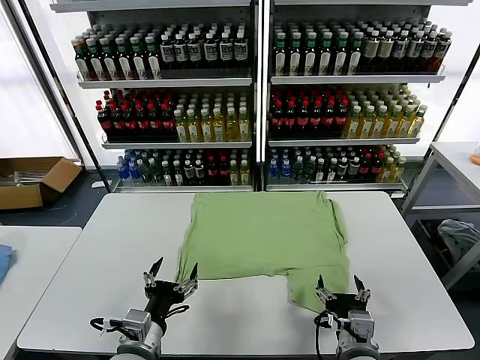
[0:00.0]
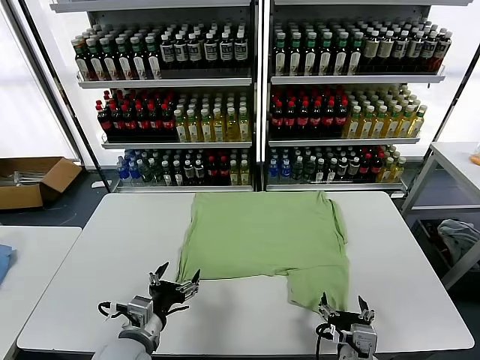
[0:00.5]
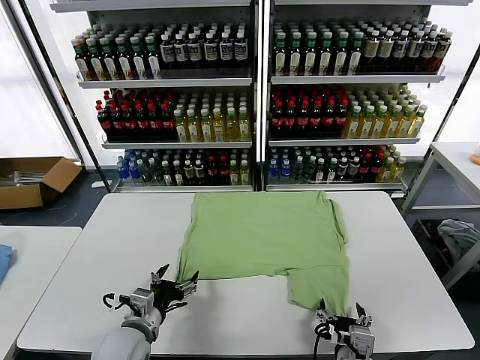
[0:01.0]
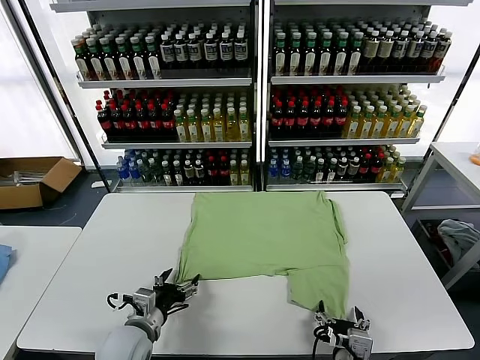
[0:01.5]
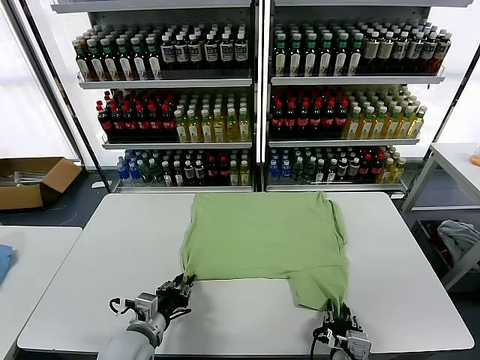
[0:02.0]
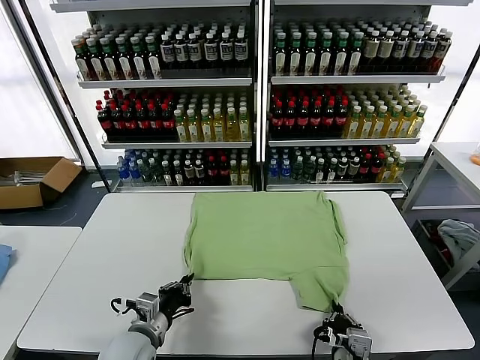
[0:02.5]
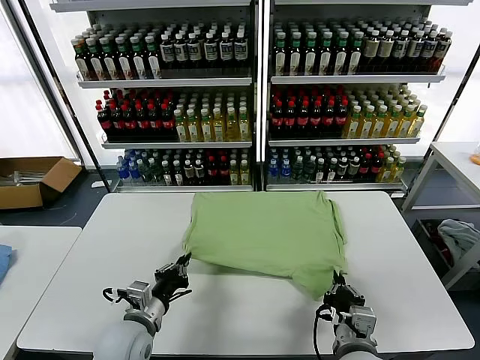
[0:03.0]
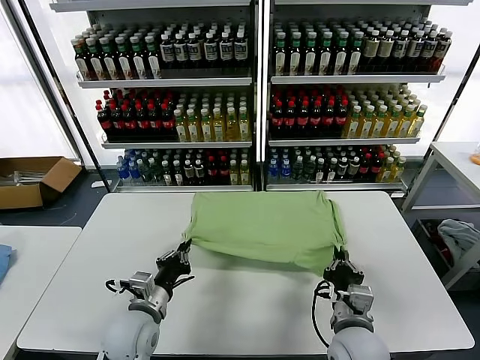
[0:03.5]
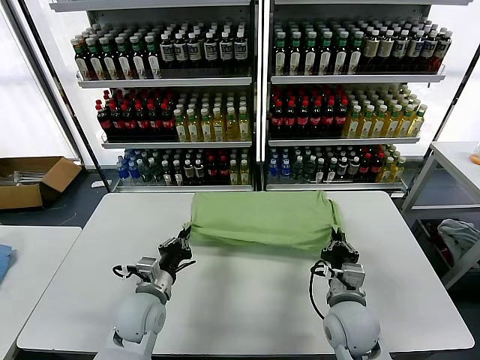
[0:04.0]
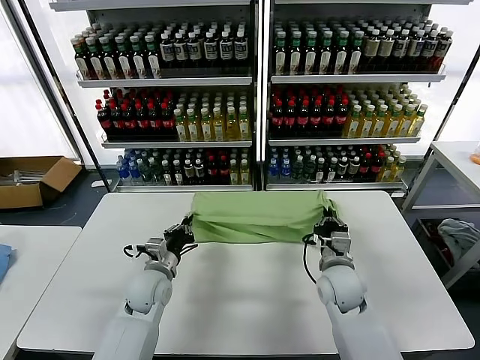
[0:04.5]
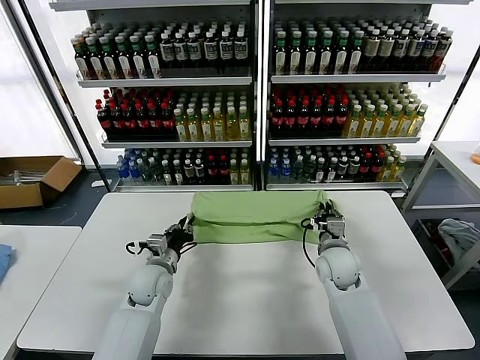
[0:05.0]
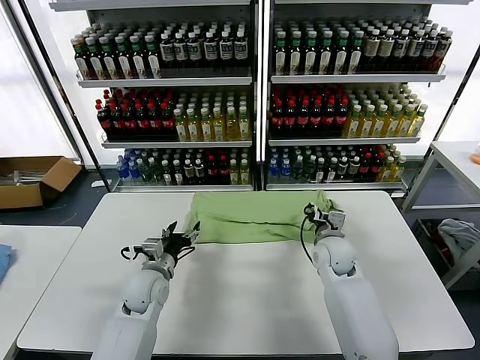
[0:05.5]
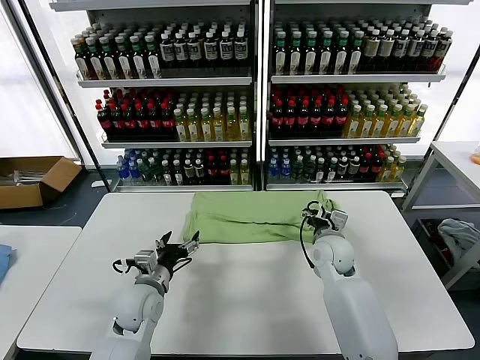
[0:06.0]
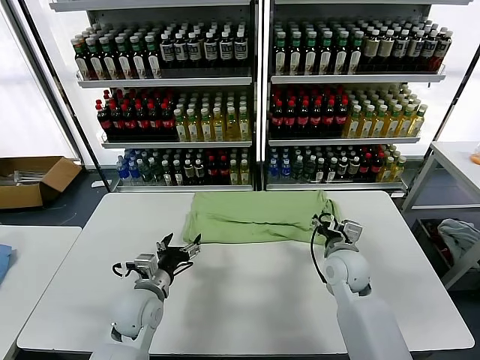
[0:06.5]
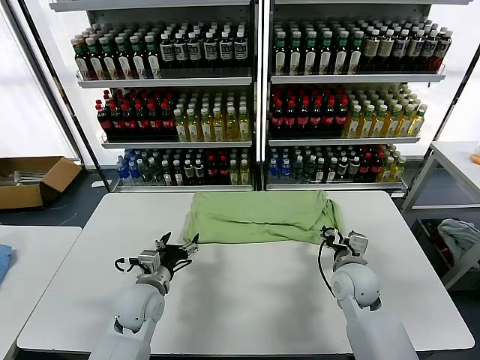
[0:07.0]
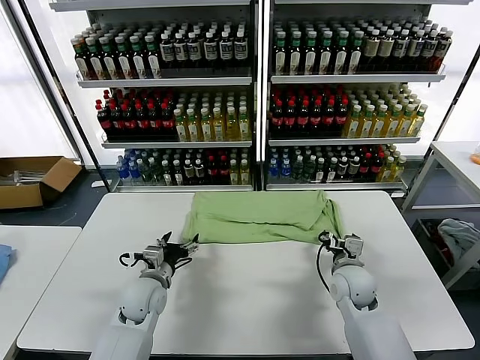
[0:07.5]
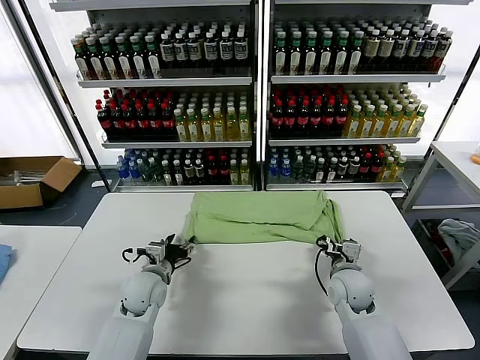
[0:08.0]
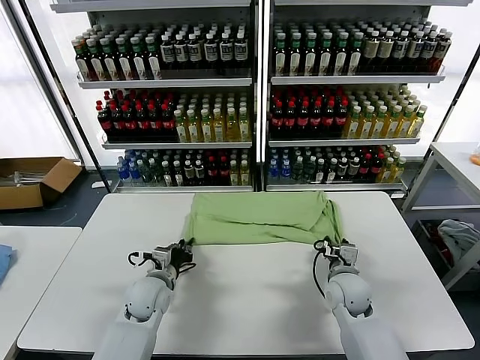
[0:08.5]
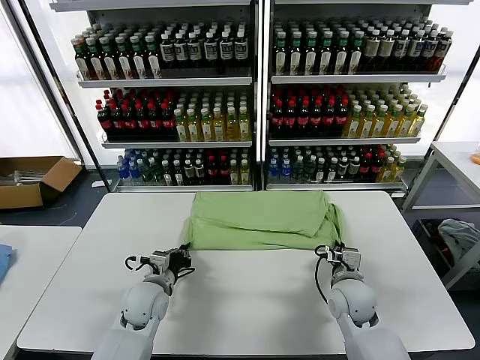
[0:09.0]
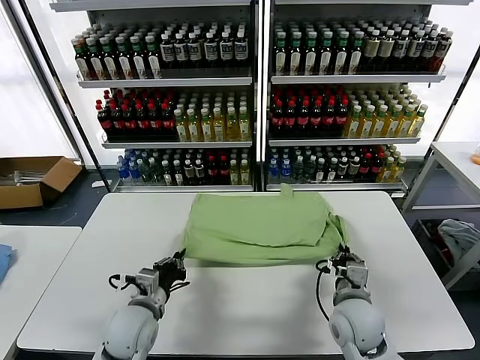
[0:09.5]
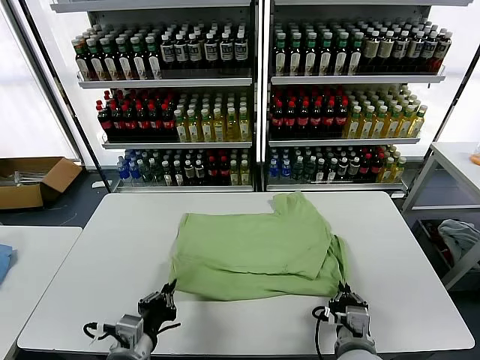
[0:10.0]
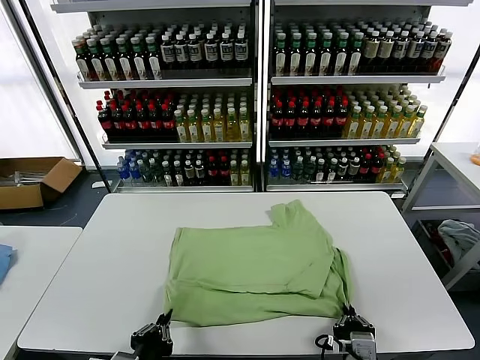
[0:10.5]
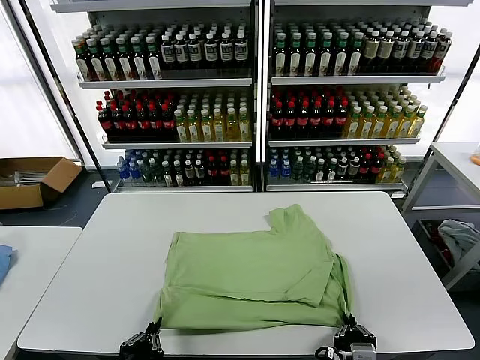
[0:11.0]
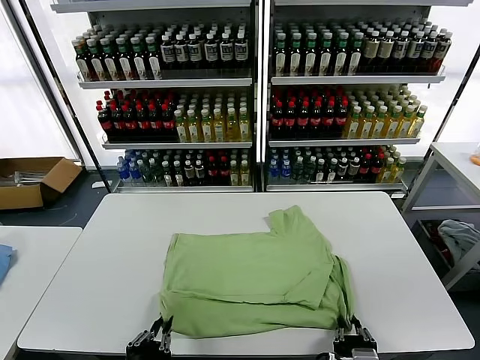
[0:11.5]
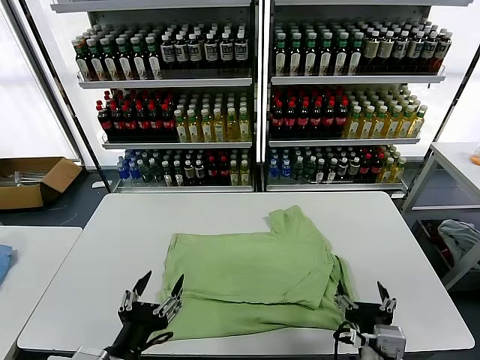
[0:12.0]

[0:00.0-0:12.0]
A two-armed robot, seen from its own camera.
Task of the whole recording: fold and organize the clothes.
Step, 0:00.0 to 0:02.0: use both grippers simultaneously to clamp the lower edge of the clothing fabric.
Step, 0:02.5 to 0:05.5: use both grippers to drag the lower edge of the fabric forward and fold it over the upper edge.
Step, 0:06.0 to 0:11.5: Drag the clothes downward with both gripper.
0:02.0 to 0:04.0: The left gripper shifts some 10 cm forward. Meanwhile the right gripper shifts some 15 cm forward.
0:04.0 to 0:06.0: The left gripper reaches roughly 10 cm forward, then returns, and opens up, while the right gripper goes some 10 cm forward, and opens its fingers.
0:06.0 to 0:08.0: The right gripper shifts about 5 cm backward. Meanwhile the left gripper moves roughly 5 cm.
0:08.0 to 0:10.0: The two grippers go some 20 cm backward. The left gripper closes its fingers, while the right gripper closes its fingers.
0:10.0 to 0:12.0: The left gripper is displaced upward and backward by approximately 10 cm, and opens its fingers. The right gripper travels upward by about 10 cm, and opens.

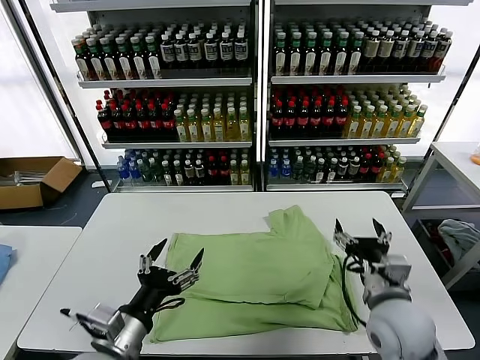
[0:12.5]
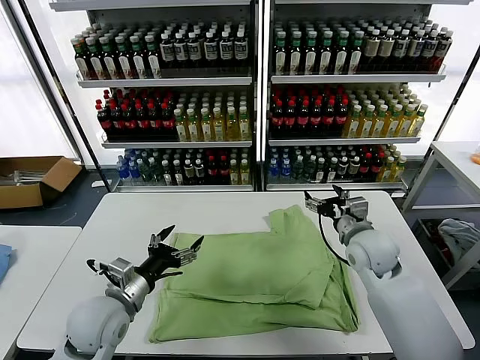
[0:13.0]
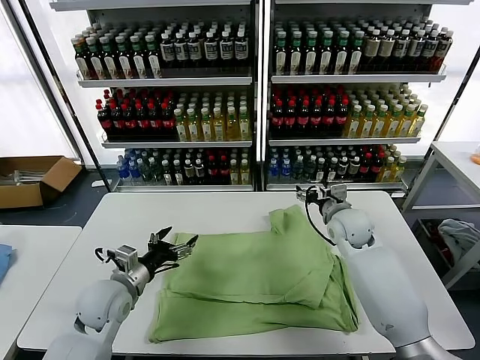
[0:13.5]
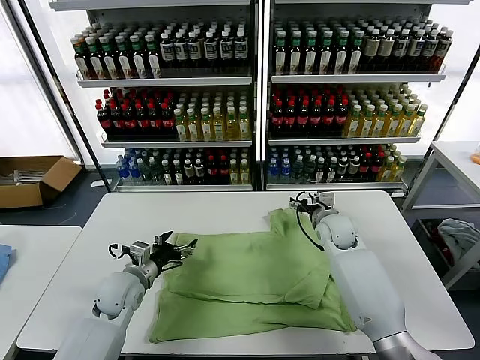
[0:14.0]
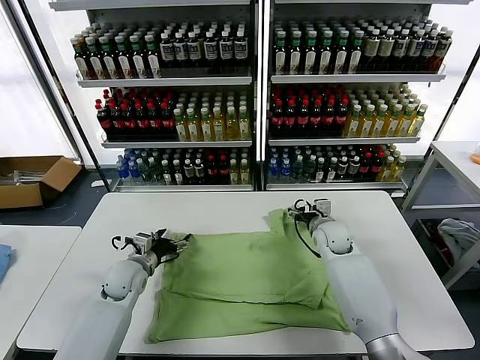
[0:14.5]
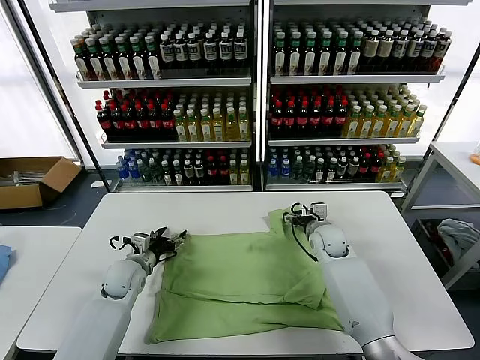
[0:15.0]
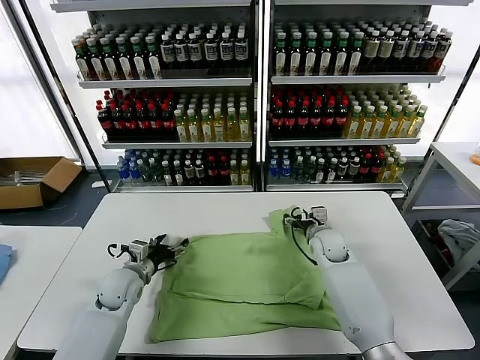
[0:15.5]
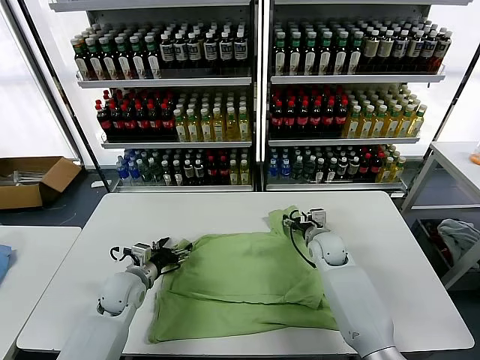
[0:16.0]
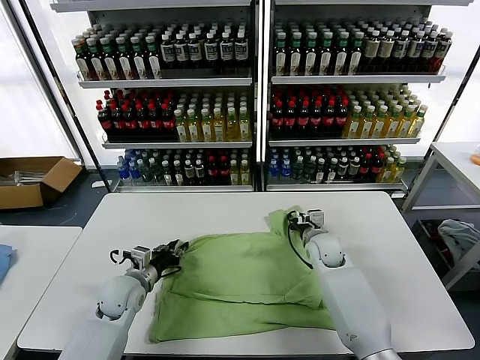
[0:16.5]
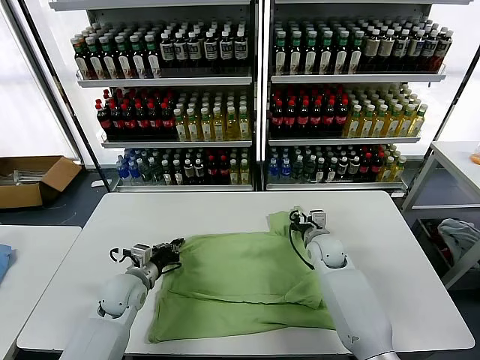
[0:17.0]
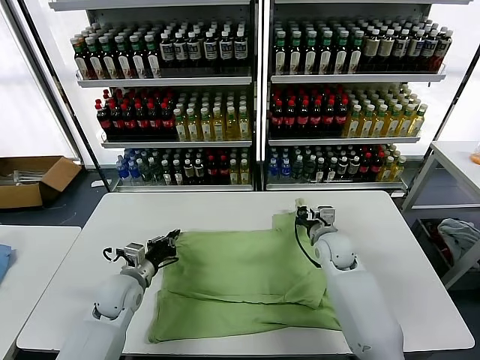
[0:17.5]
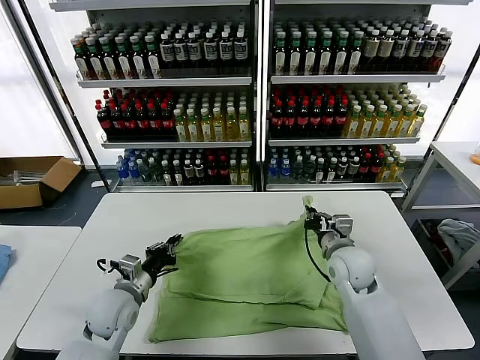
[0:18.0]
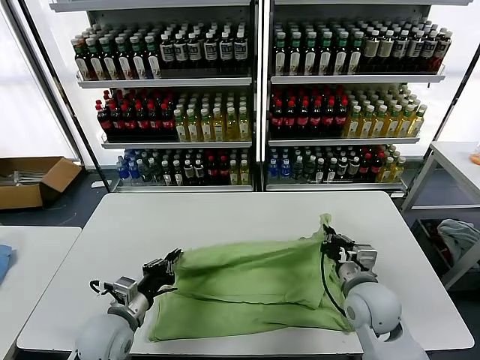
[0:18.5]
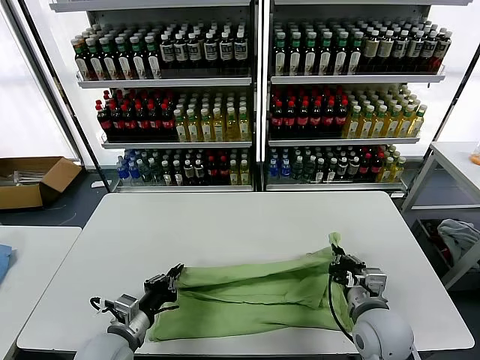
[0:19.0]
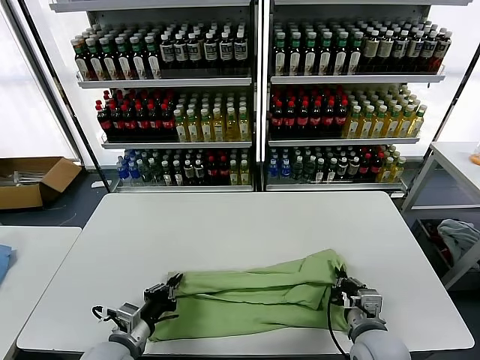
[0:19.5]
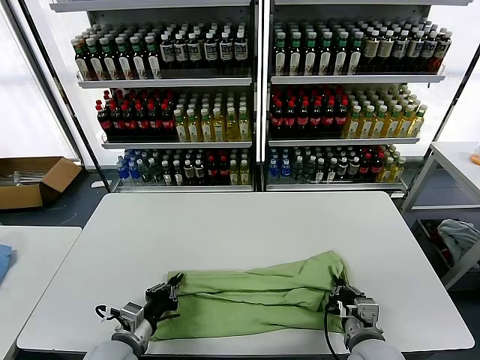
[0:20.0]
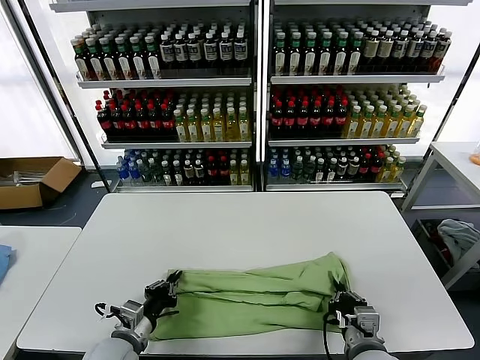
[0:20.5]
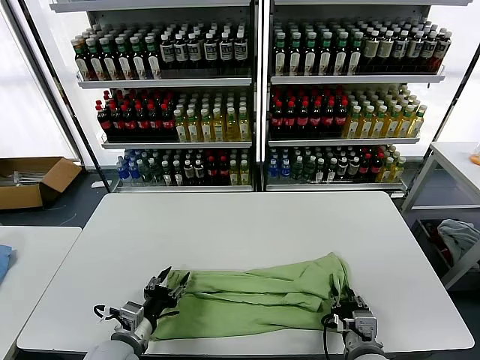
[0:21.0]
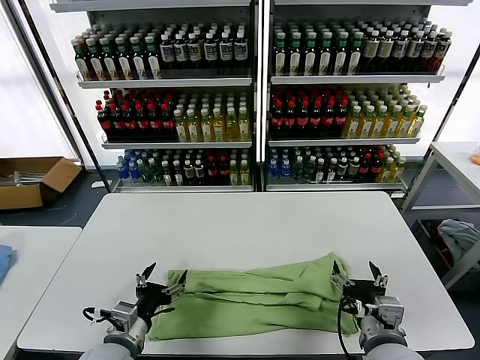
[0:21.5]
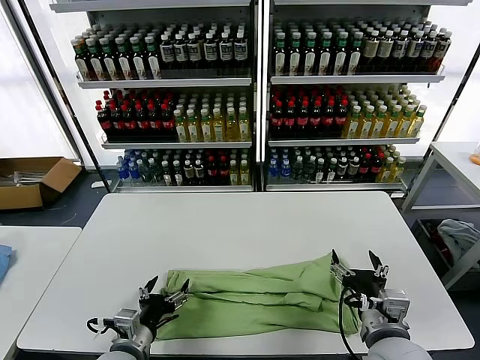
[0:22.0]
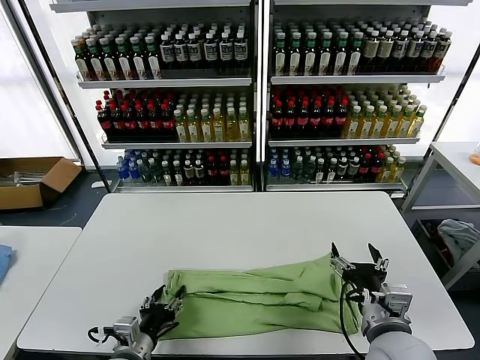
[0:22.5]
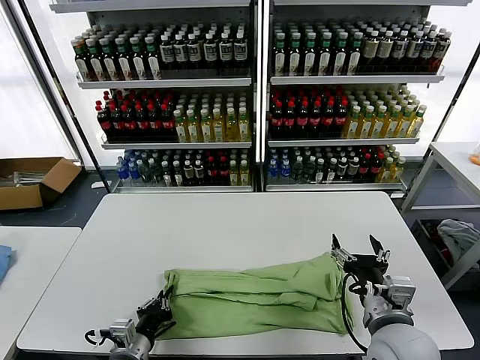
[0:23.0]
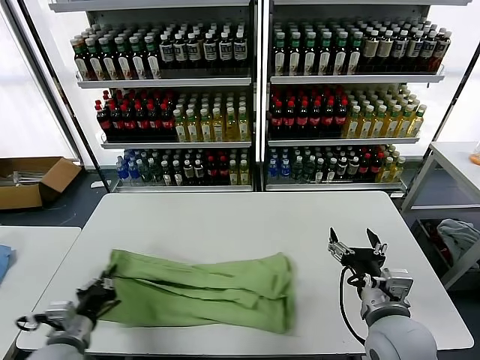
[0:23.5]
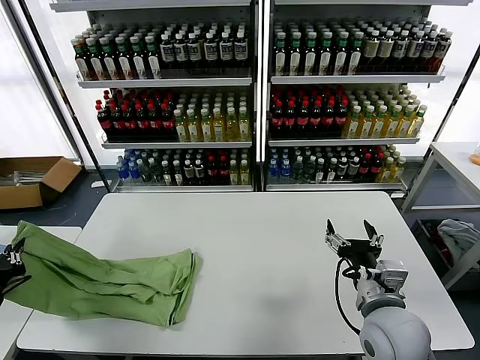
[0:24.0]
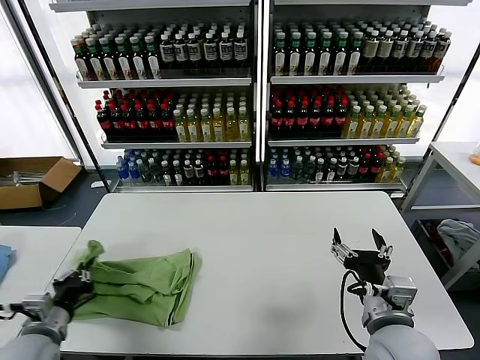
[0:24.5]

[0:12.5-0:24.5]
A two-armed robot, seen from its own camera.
Task of the whole recording: fold and organize the clothes.
Step, 0:12.5 to 0:16.5: use both grippers simultaneously to clamp the upper edge of the clothing fabric.
Step, 0:17.0 to 0:21.0: use both grippers to drag the upper edge of the fabric backward and fold it over the lower edge.
Step, 0:21.5 to 0:23.0: use the left gripper to clamp the left edge of the fabric.
0:12.5 to 0:14.5: Both grippers move forward and downward, about 25 cm.
0:14.5 to 0:16.5: The right gripper closes up, while the left gripper closes.
0:16.5 to 0:18.5: The right gripper heads backward and upward, covering some 20 cm, and closes; the left gripper shifts some 10 cm backward, and closes.
0:18.5 to 0:20.5: The right gripper shifts some 10 cm backward.
0:20.5 to 0:22.5: The right gripper goes some 10 cm upward, and opens. The left gripper opens up.
0:22.5 to 0:24.5: The left gripper heads to the left, covering about 15 cm, and closes its fingers.

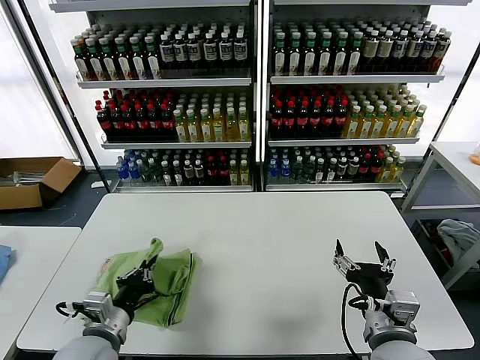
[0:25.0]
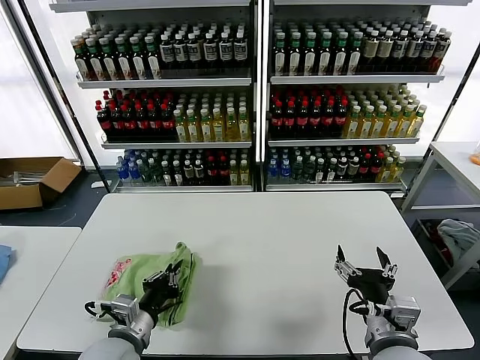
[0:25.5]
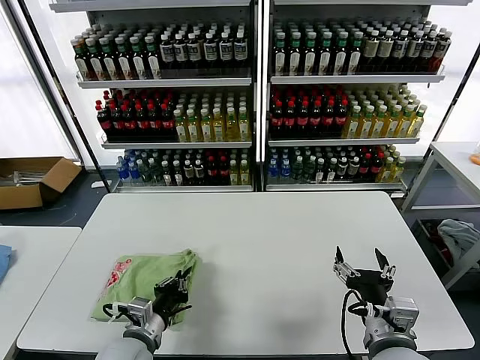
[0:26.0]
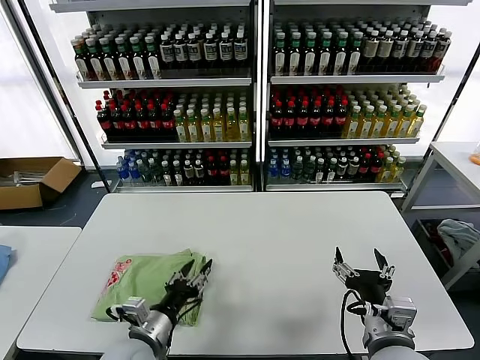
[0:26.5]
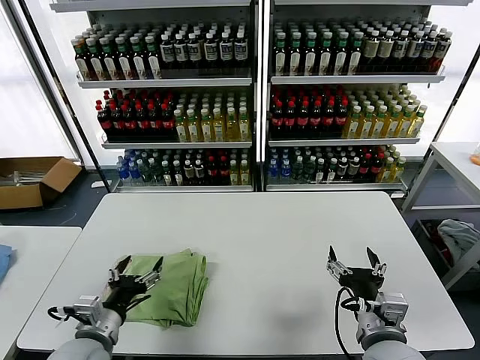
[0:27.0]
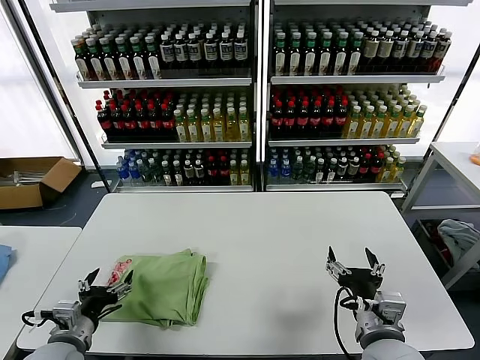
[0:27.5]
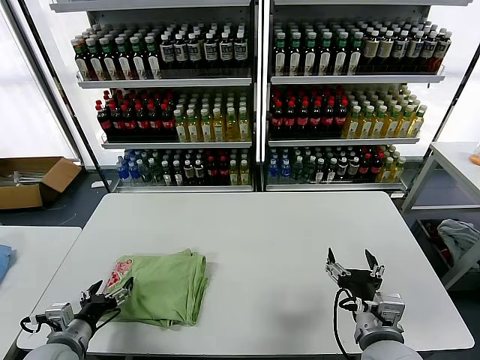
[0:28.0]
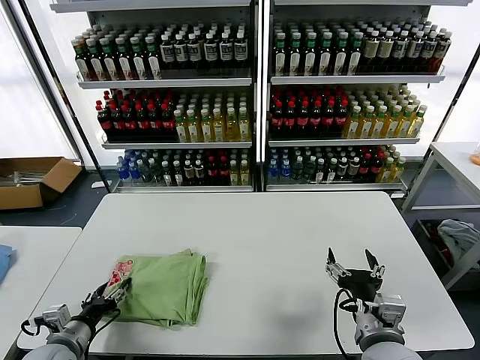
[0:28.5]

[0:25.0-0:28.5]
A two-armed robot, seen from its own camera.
Task of the whole recording: fold and organize the clothes.
0:25.0 to 0:27.0: The left gripper reaches roughly 5 cm to the right, then returns, and opens.
0:27.0 to 0:28.5: The left gripper goes some 10 cm to the left.
